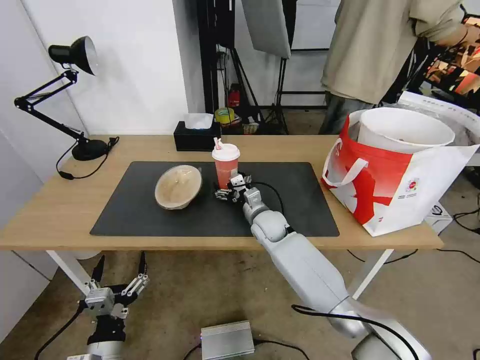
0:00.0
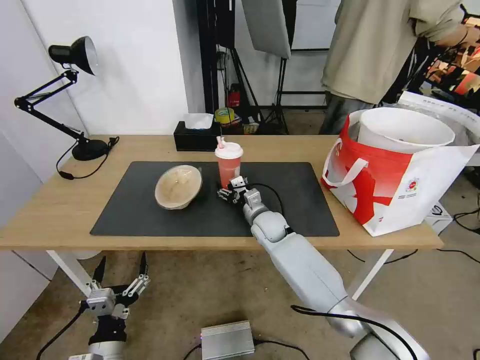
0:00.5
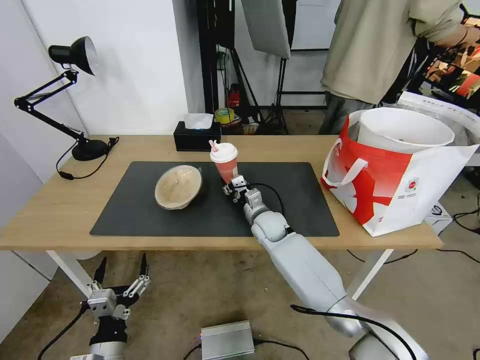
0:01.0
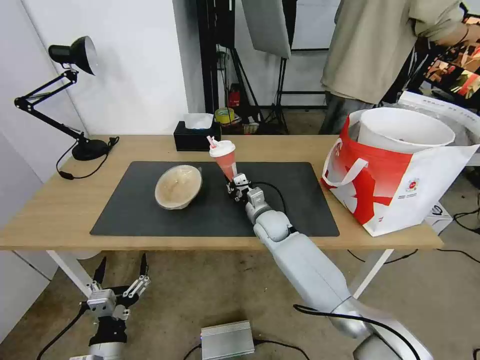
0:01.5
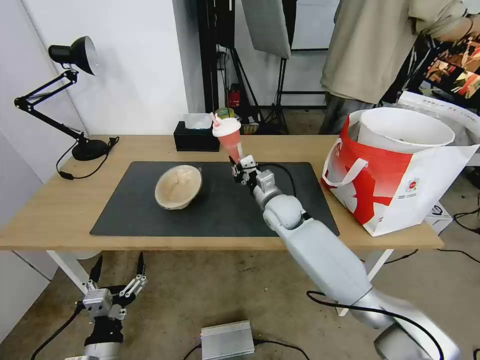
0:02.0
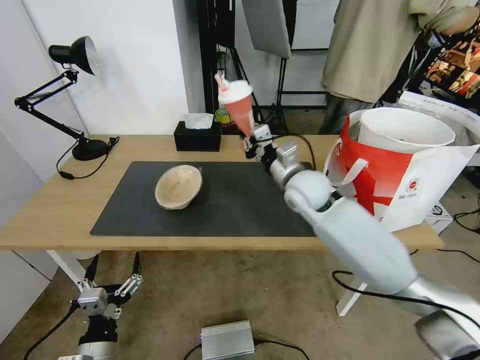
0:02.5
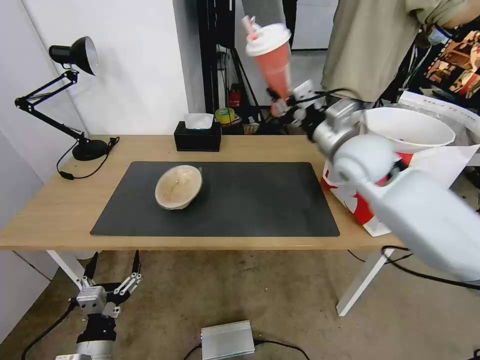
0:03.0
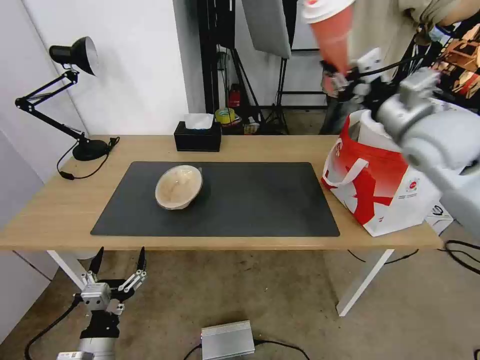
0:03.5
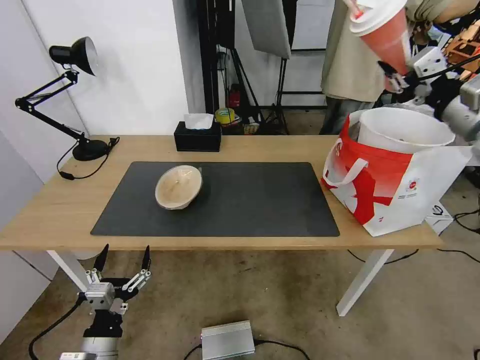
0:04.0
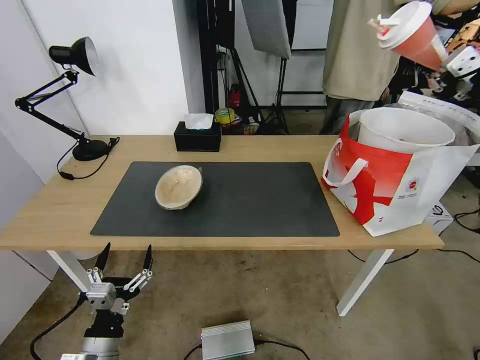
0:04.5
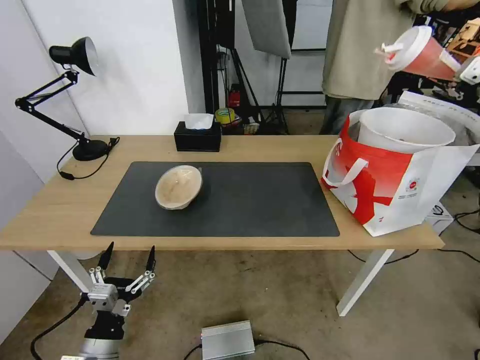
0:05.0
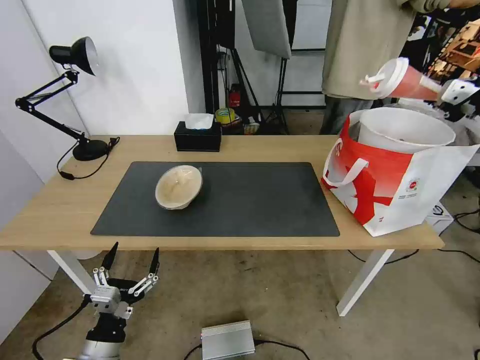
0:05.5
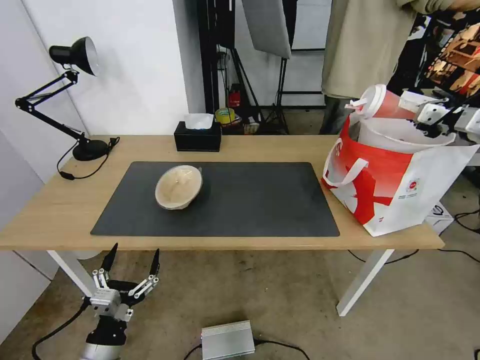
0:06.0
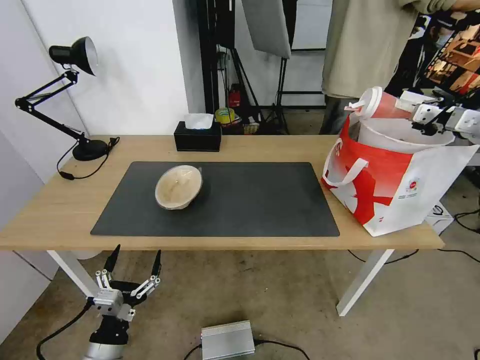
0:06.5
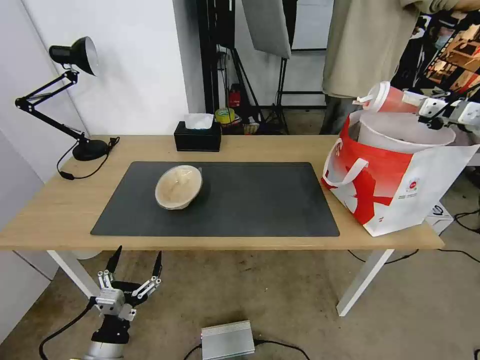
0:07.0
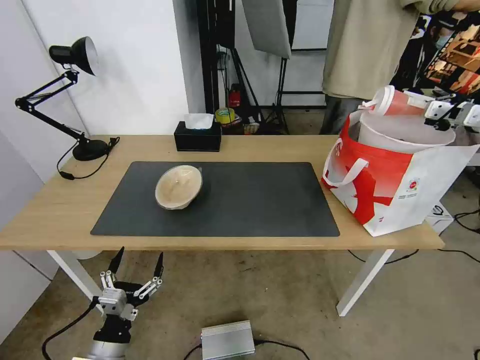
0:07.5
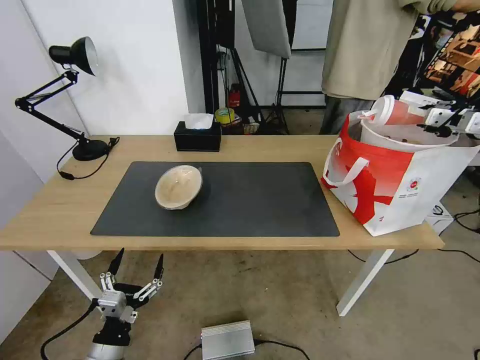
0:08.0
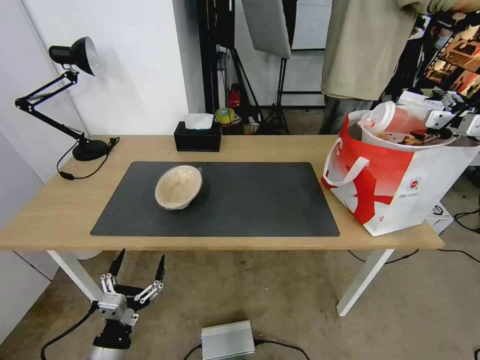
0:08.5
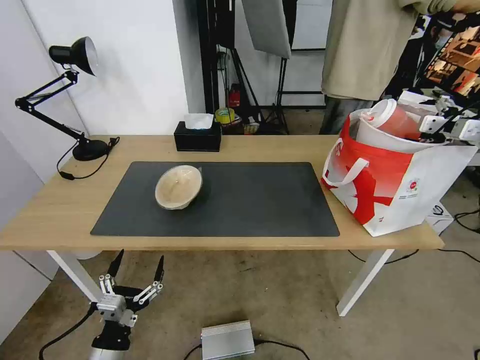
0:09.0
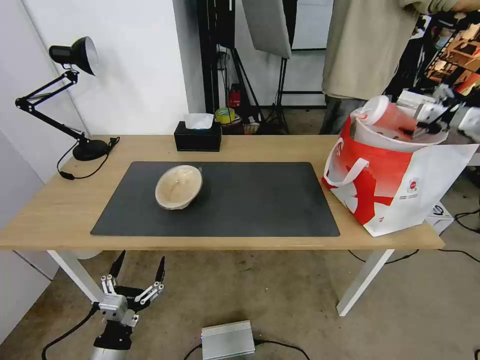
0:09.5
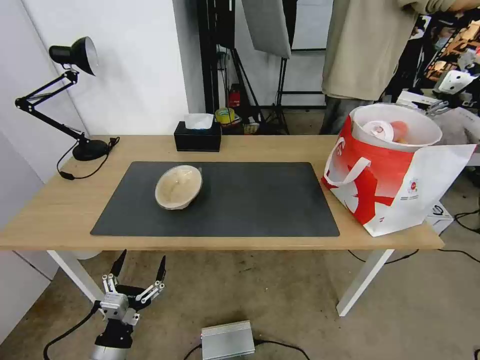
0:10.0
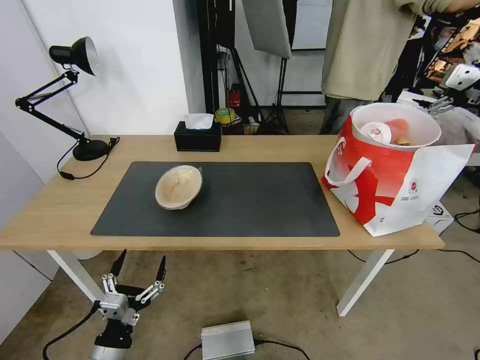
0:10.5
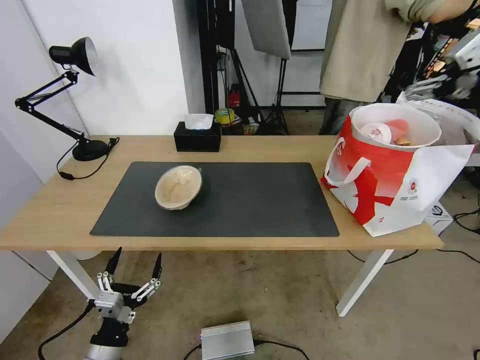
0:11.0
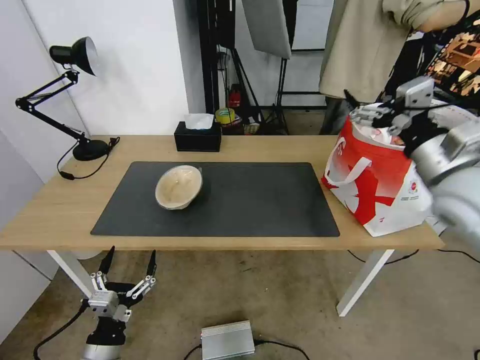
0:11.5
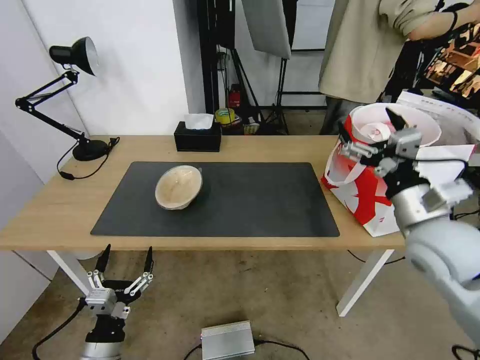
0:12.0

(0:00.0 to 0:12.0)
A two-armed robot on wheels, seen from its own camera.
Task of the whole recording: Pick up the trash from the table and place it into the takeout bag.
0:00.0 - 0:02.0: The right gripper goes approximately 5 cm upward, and closes.
0:02.0 - 0:04.0: The right gripper shifts roughly 40 cm to the right and upward.
0:04.0 - 0:06.0: The right gripper heads to the right, covering approximately 10 cm.
0:06.0 - 0:08.0: The right gripper changes place by about 5 cm.
0:08.0 - 0:10.0: The right gripper shifts approximately 5 cm upward, and opens.
0:10.0 - 0:12.0: The right gripper travels to the left, downward and backward by about 30 cm.

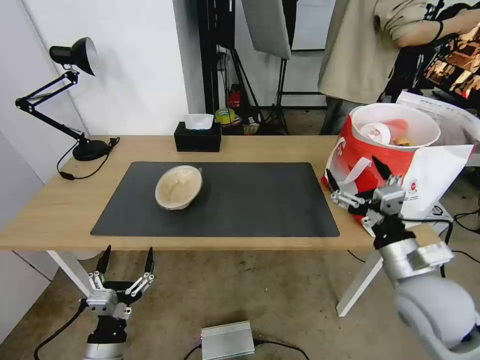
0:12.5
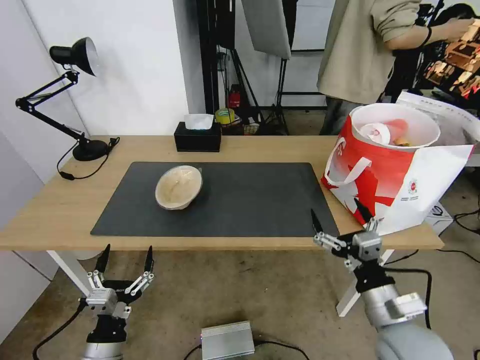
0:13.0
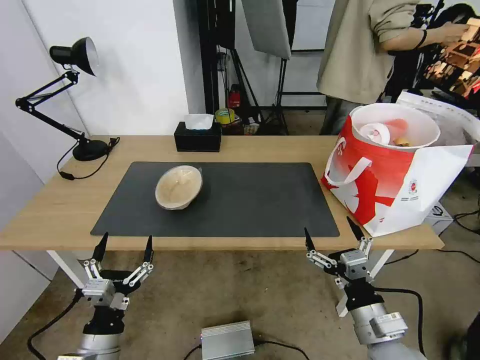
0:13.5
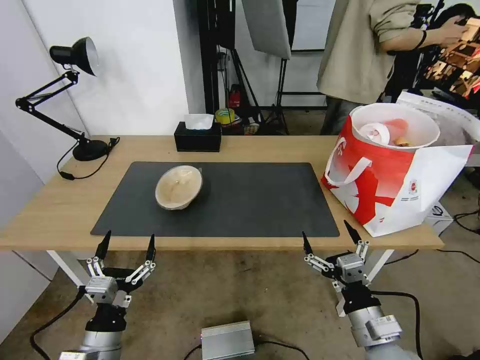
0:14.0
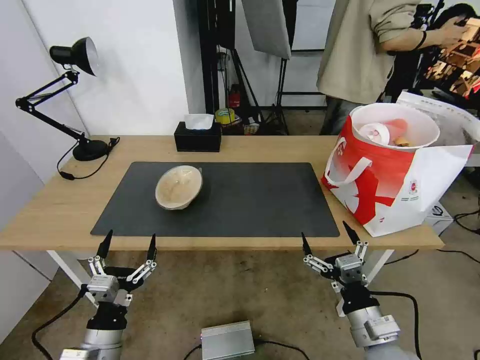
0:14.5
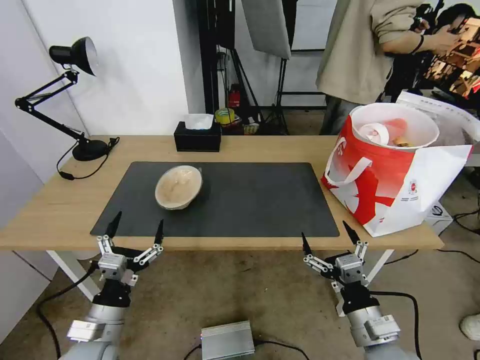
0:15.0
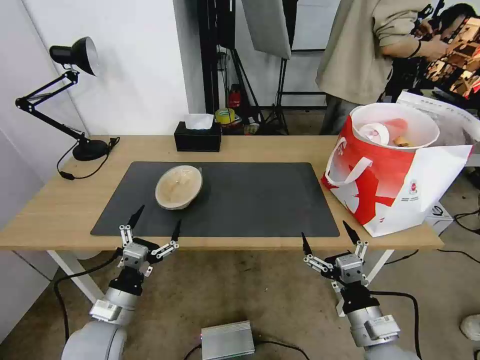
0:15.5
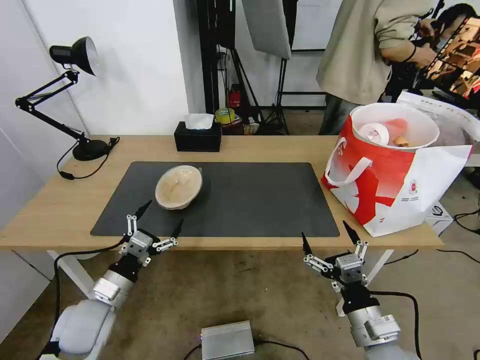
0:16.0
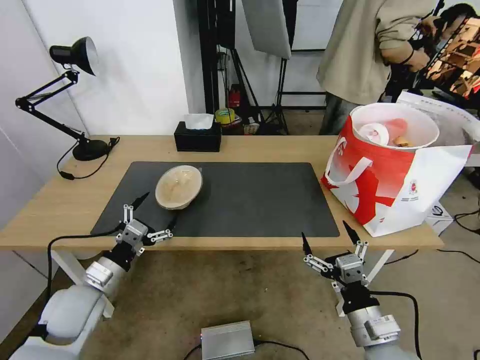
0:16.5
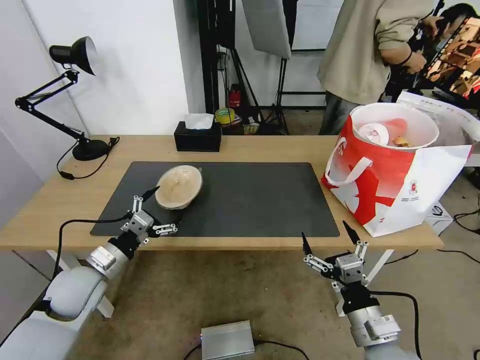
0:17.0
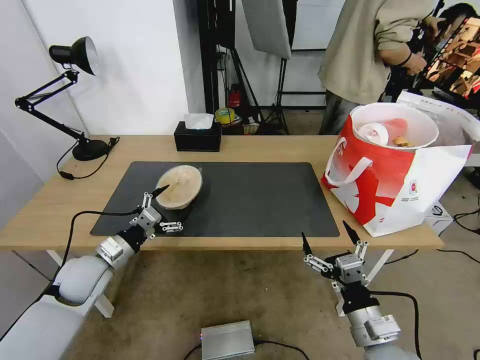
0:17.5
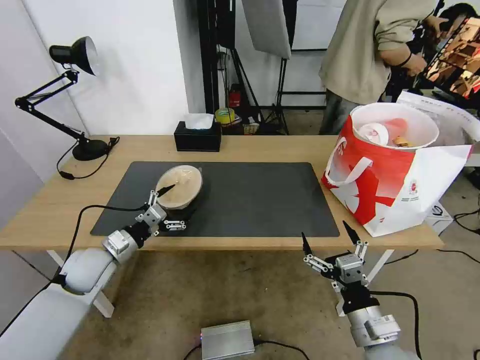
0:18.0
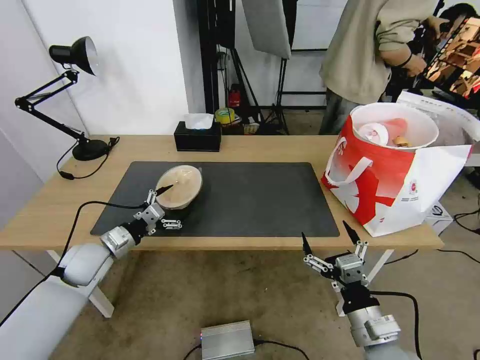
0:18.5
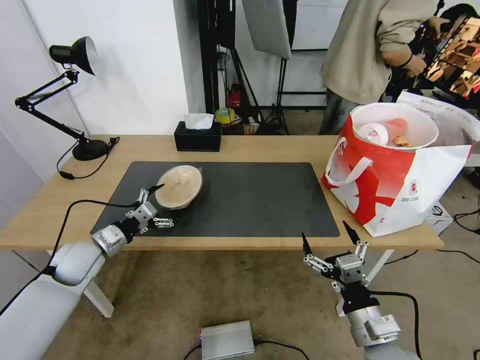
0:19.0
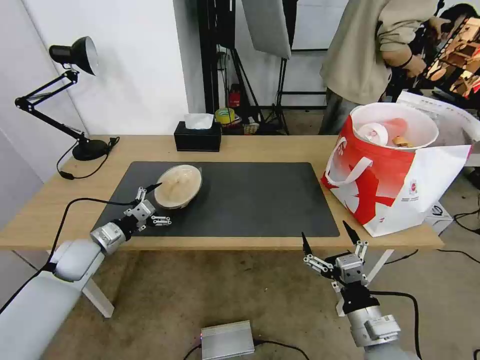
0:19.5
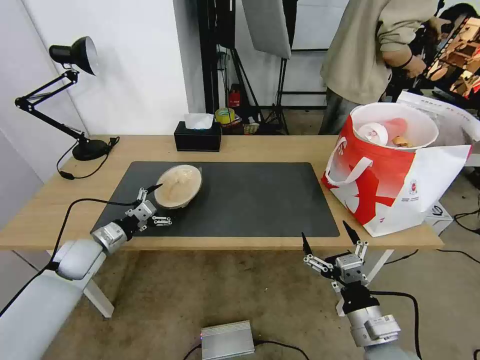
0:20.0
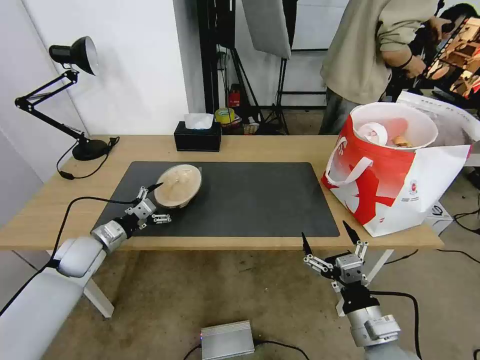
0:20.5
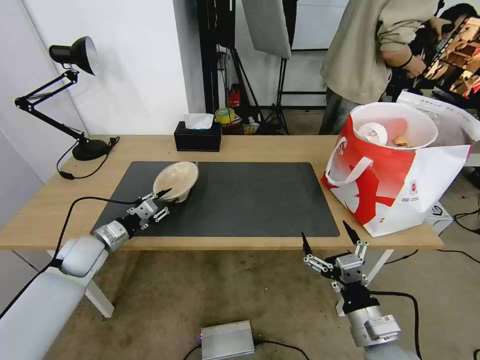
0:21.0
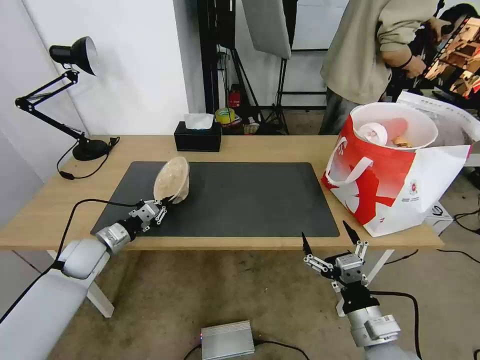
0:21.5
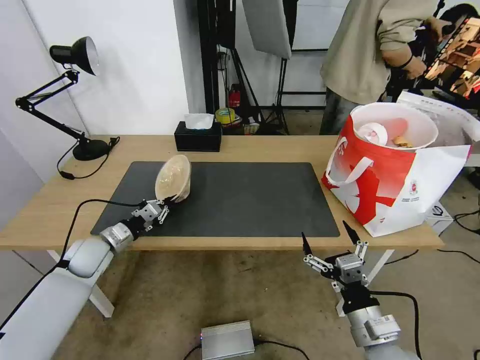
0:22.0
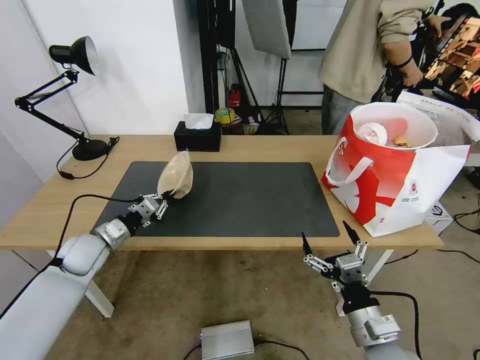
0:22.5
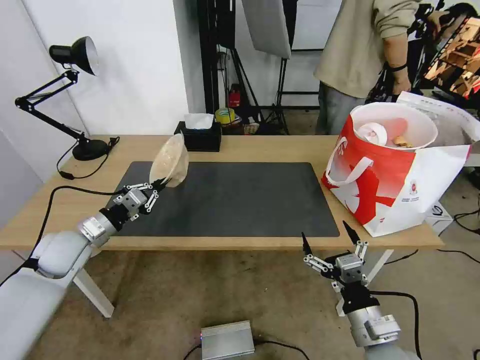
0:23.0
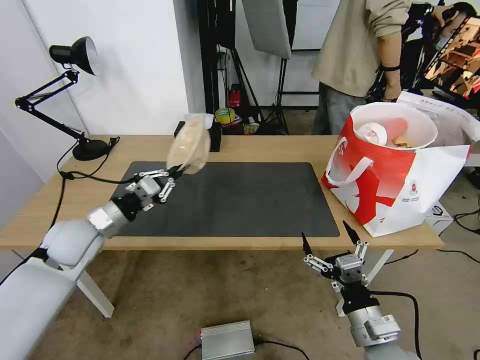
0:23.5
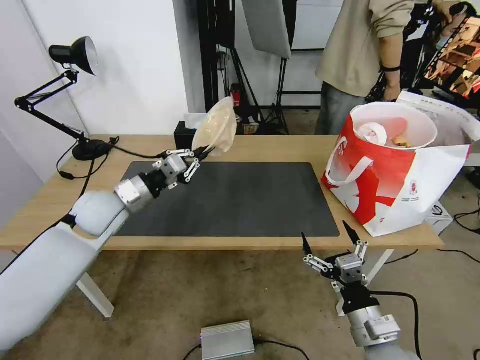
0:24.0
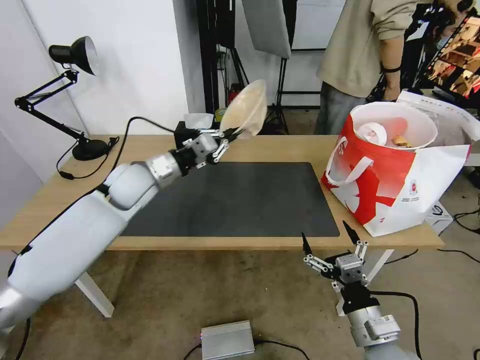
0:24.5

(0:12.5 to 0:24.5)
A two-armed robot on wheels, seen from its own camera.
Task of the whole recording: Pick up the trash from the table and place it into the takeout bag.
0:12.5 - 0:14.5: The right gripper heads downward, backward and to the left, covering about 15 cm.
0:14.5 - 0:16.5: The left gripper shifts some 15 cm forward and to the left.
0:16.5 - 0:18.5: The left gripper is displaced forward by roughly 10 cm.
0:18.5 - 0:20.5: The grippers stay close to where they were, moving slightly.
0:20.5 - 0:22.5: The left gripper closes.
0:22.5 - 0:24.5: The left gripper goes about 20 cm upward, to the right and forward.

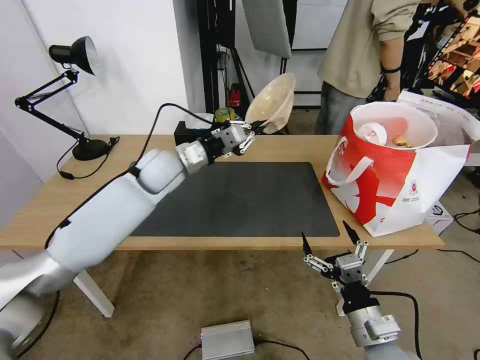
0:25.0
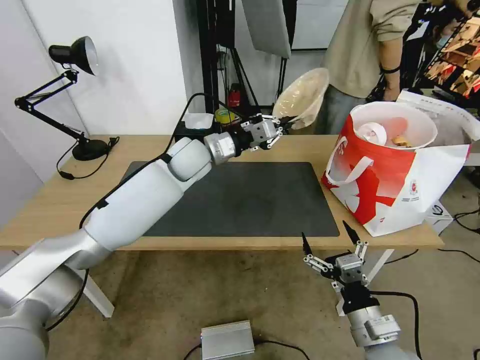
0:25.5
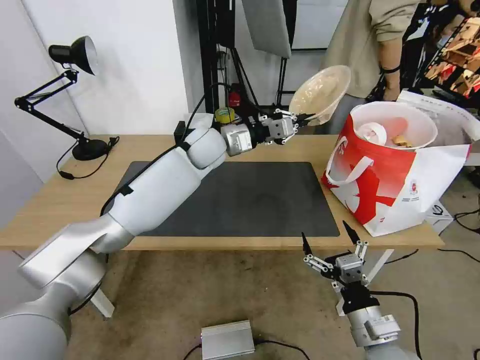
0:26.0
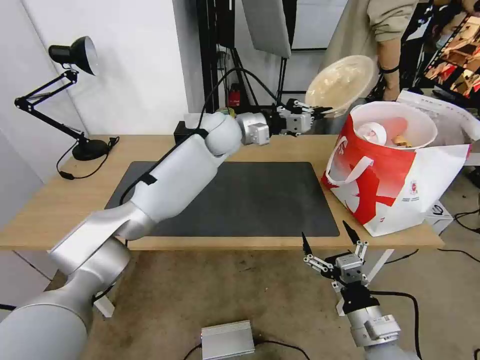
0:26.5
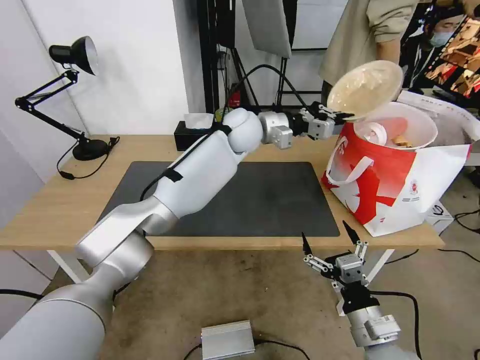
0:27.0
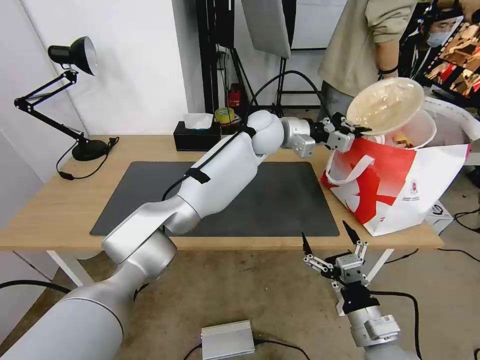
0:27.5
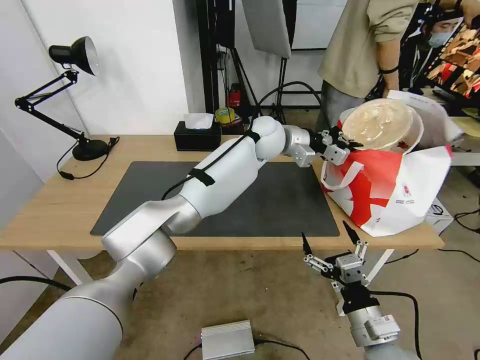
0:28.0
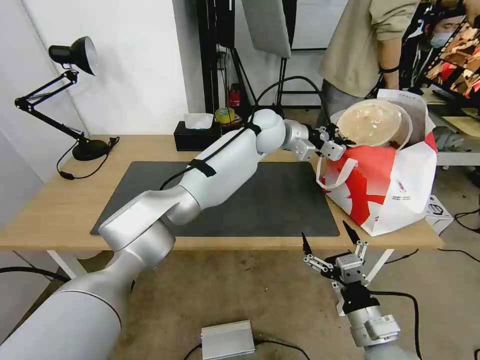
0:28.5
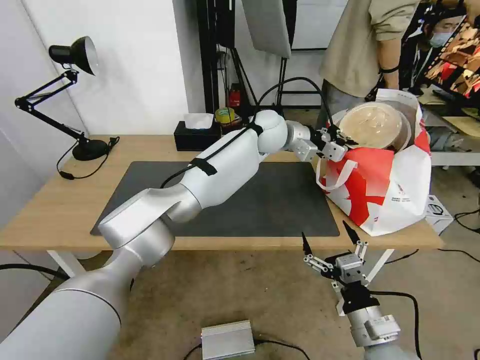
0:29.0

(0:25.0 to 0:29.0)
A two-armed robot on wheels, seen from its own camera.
Task of the whole recording: Pick up the trash from the table and place it into the takeout bag.
0:25.0 - 0:27.0: The left gripper shifts some 20 cm to the right and forward.
0:27.0 - 0:29.0: The left gripper shifts some 5 cm to the right.
